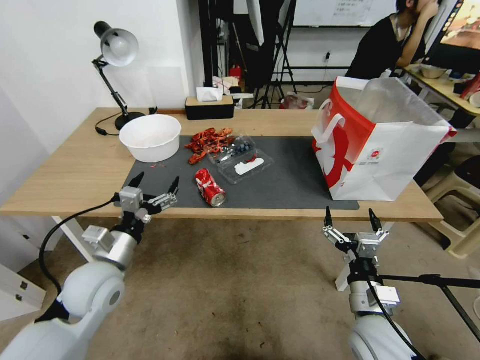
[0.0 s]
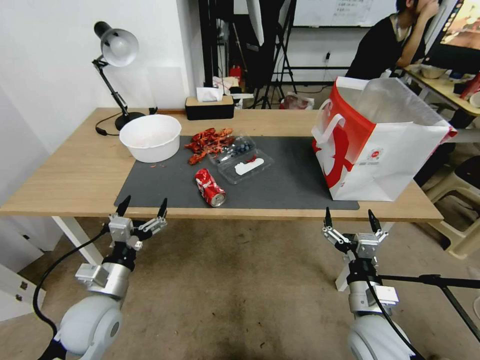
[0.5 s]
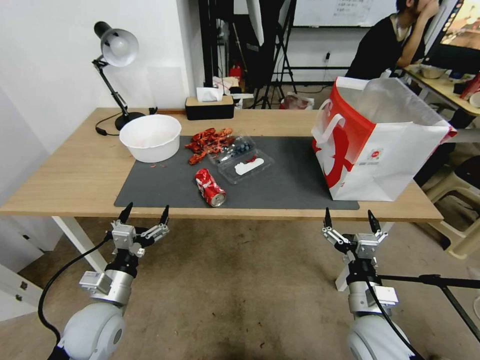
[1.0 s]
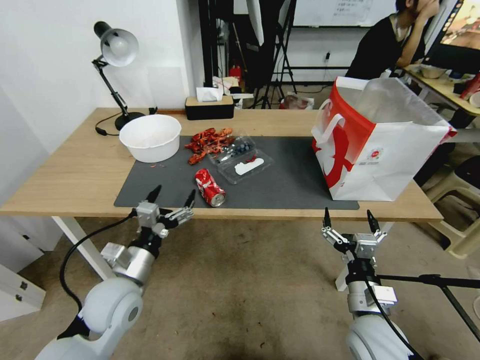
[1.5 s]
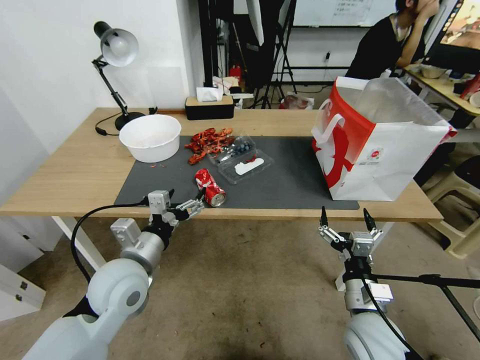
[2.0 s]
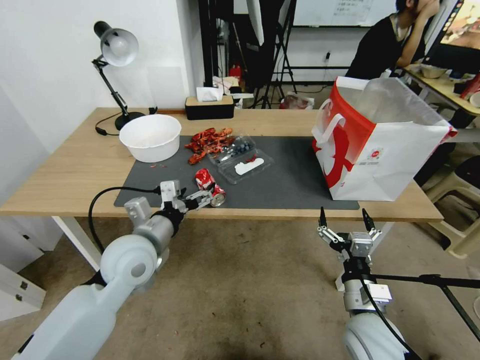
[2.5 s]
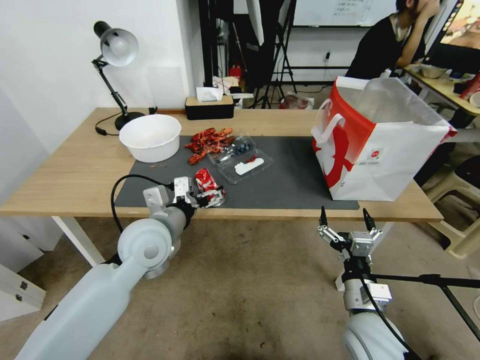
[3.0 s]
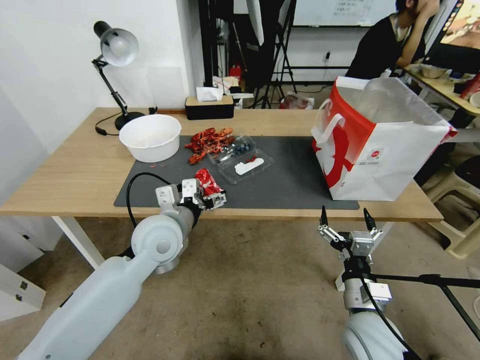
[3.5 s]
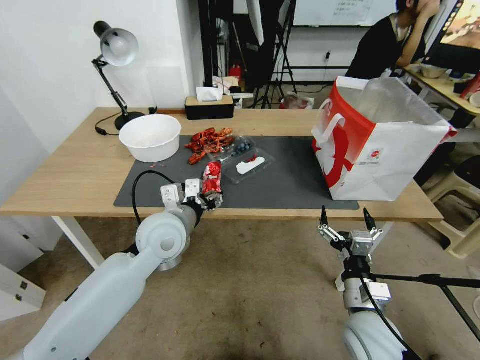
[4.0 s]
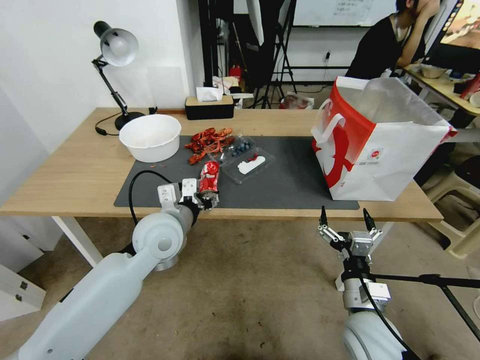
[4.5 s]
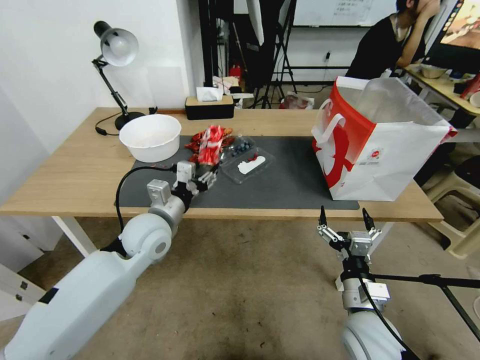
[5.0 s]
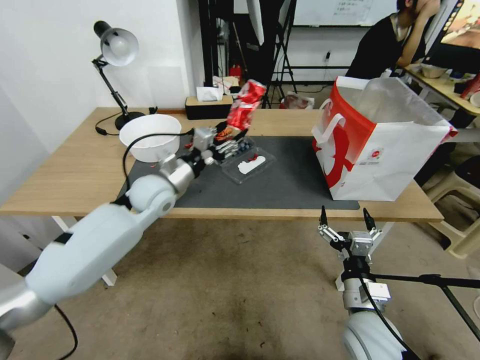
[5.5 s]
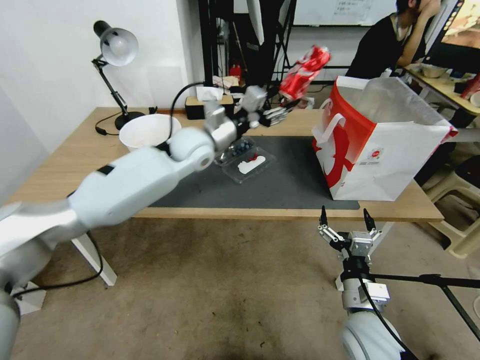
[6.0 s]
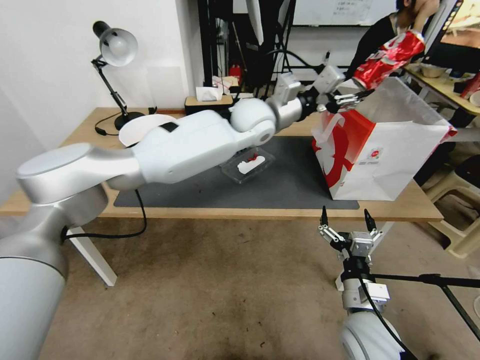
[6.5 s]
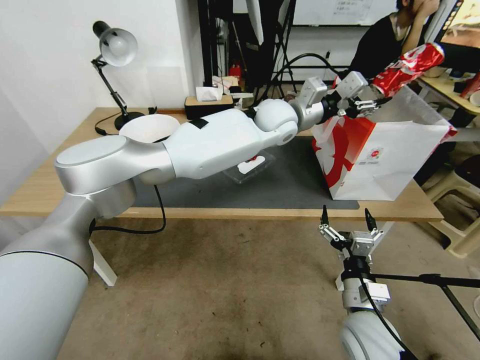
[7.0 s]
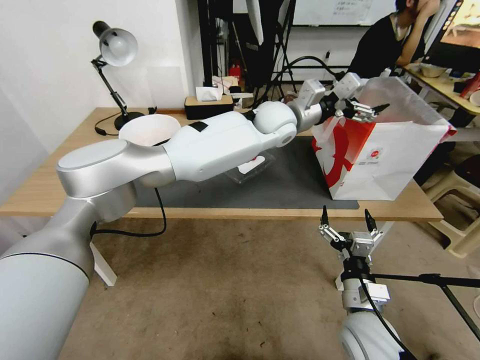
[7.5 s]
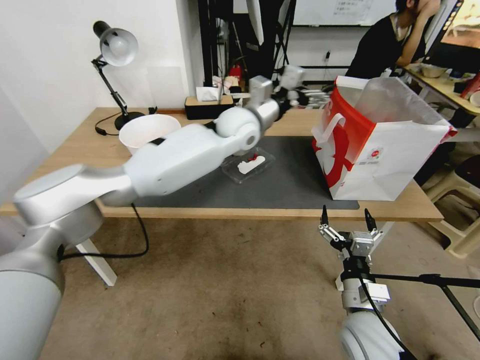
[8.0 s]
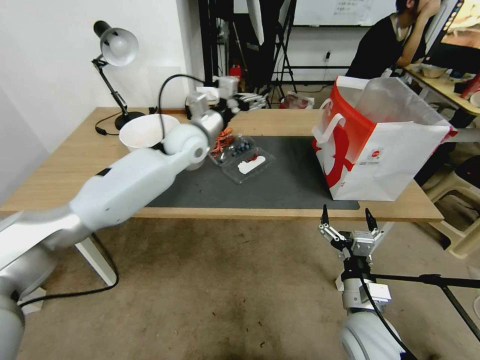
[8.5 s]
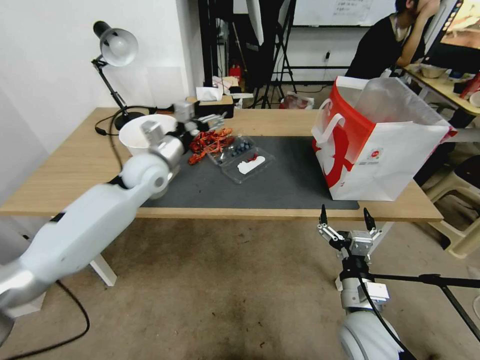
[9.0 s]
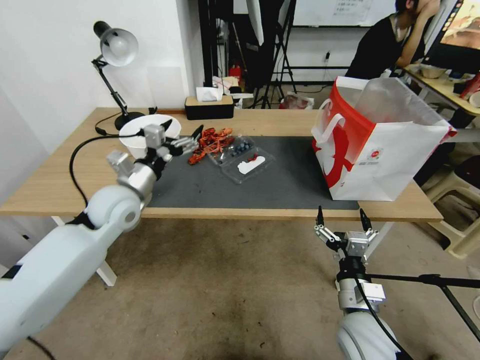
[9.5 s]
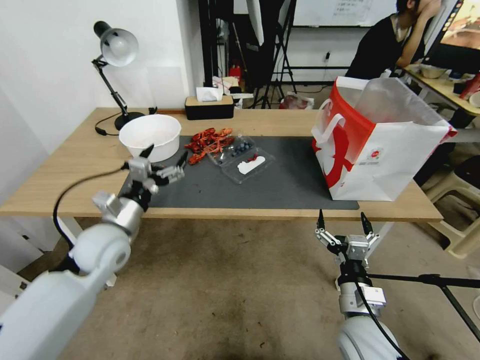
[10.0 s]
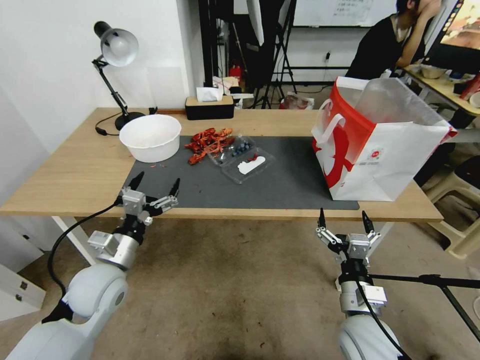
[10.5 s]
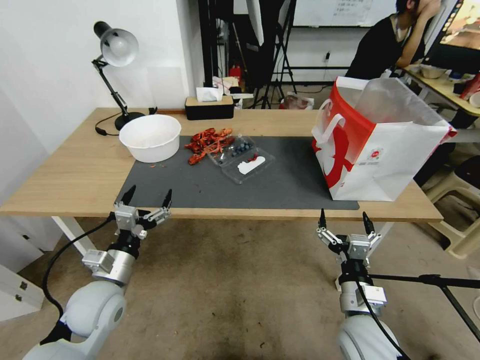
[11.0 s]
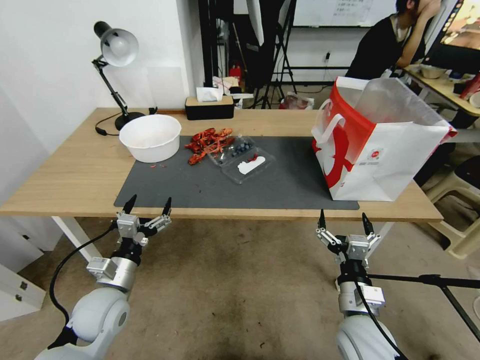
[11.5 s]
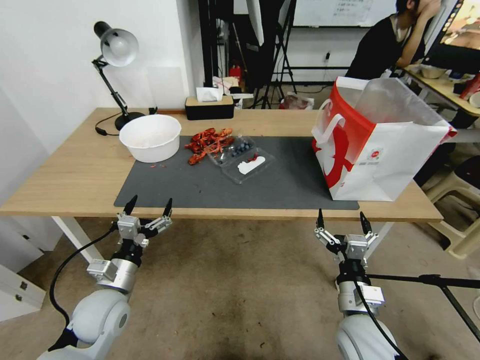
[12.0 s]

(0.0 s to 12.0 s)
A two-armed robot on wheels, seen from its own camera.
0.0 s - 2.0 s: The left gripper is displaced to the right by approximately 5 cm, and moves approximately 5 cm downward and comes back.
2.0 s - 4.0 s: The left gripper goes some 10 cm forward and to the right, and closes.
4.0 s - 6.0 s: The left gripper heads forward and upward, covering roughly 20 cm.
6.0 s - 8.0 s: The left gripper shifts some 10 cm to the right, and opens.
8.0 s - 10.0 s: The left gripper heads to the left, backward and downward, covering some 35 cm.
10.0 s - 12.0 s: The left gripper is displaced downward and backward by some 15 cm.

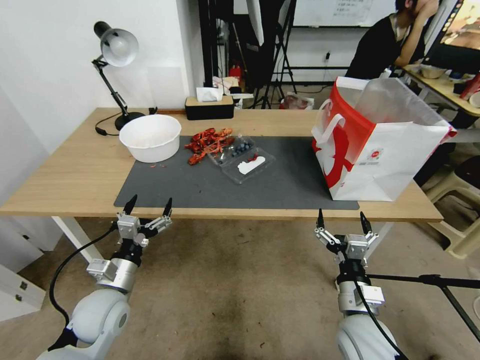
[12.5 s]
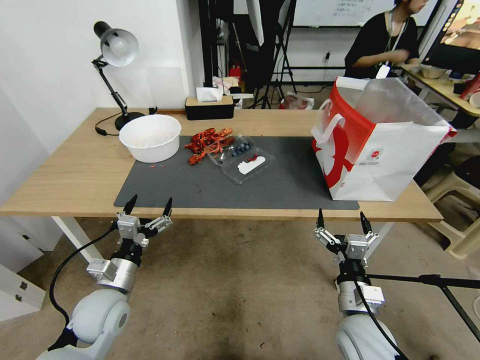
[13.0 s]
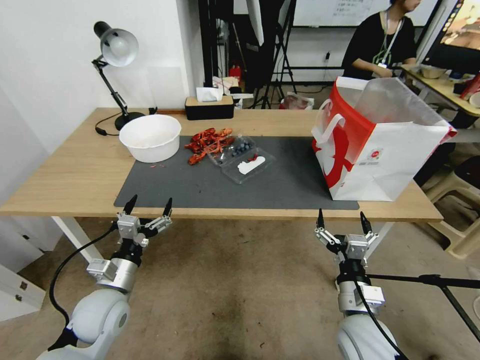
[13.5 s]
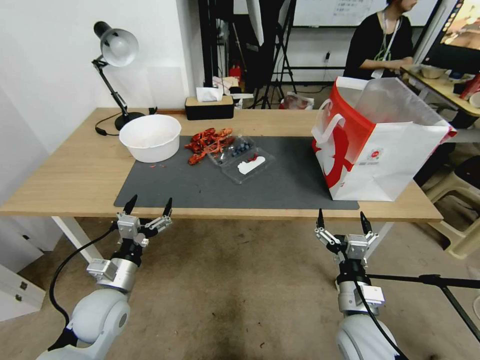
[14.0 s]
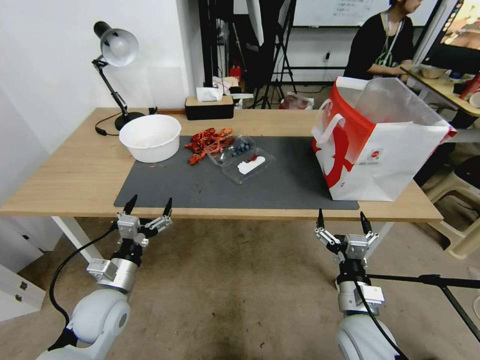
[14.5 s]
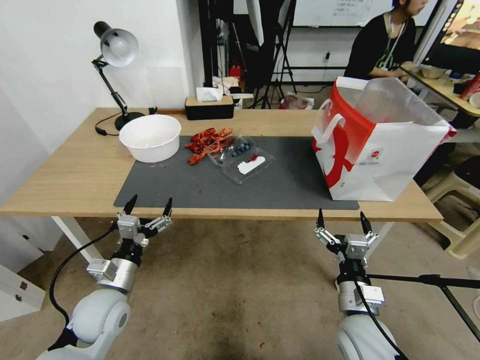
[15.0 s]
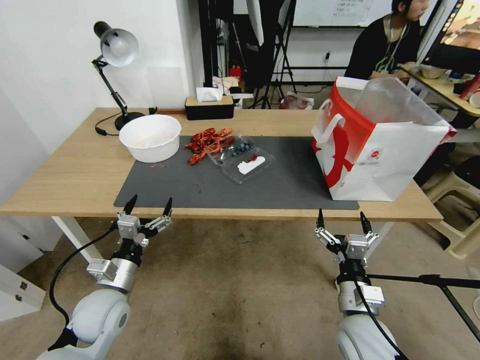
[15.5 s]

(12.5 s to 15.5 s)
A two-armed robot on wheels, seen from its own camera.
12.5 s - 15.5 s: Both grippers stay put.
